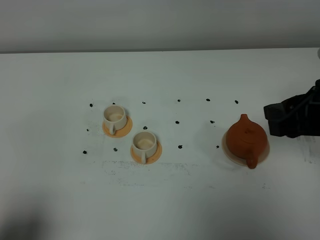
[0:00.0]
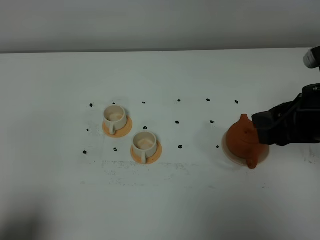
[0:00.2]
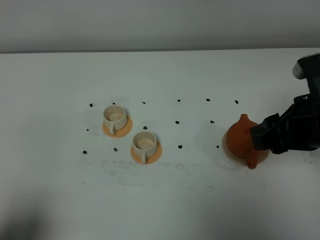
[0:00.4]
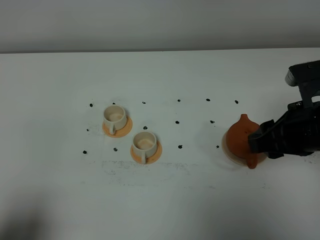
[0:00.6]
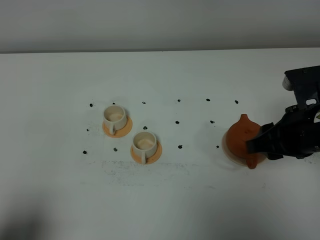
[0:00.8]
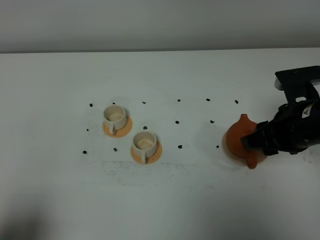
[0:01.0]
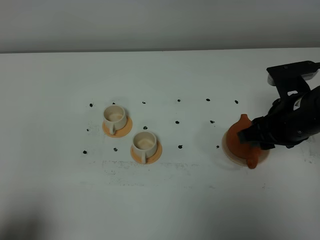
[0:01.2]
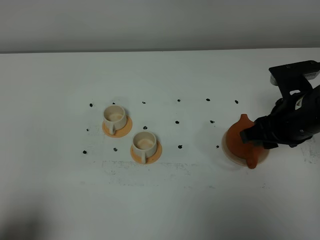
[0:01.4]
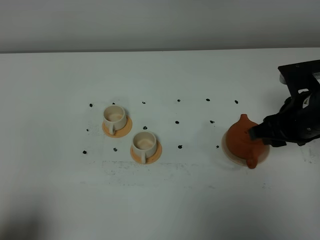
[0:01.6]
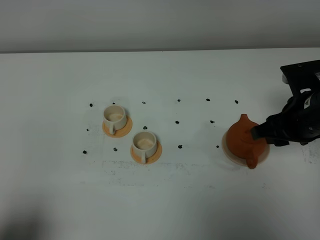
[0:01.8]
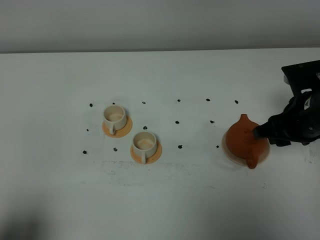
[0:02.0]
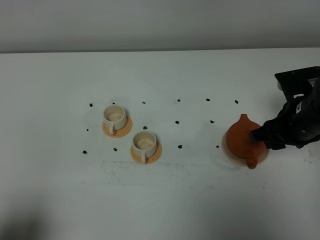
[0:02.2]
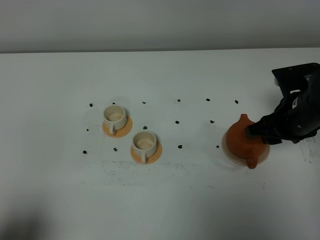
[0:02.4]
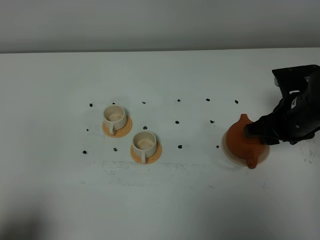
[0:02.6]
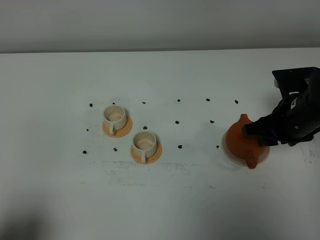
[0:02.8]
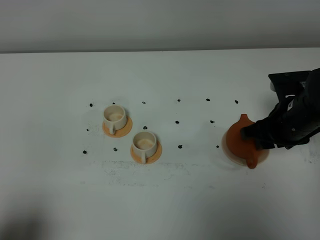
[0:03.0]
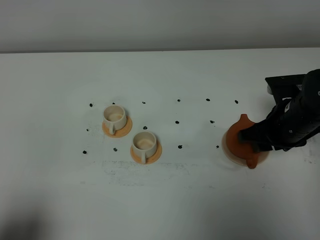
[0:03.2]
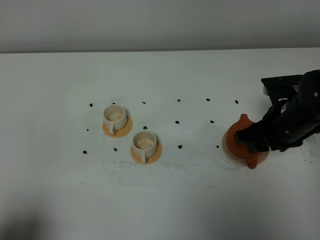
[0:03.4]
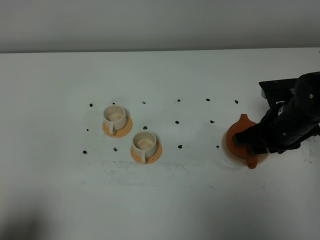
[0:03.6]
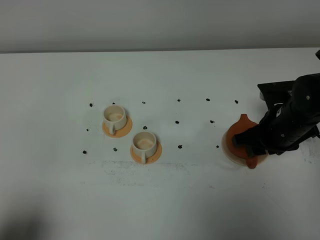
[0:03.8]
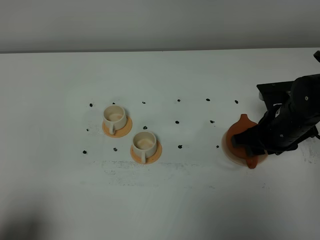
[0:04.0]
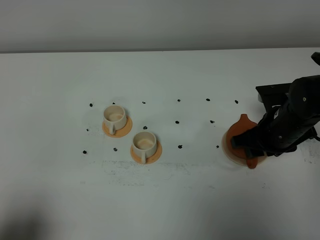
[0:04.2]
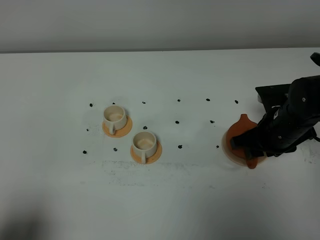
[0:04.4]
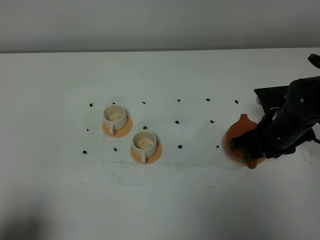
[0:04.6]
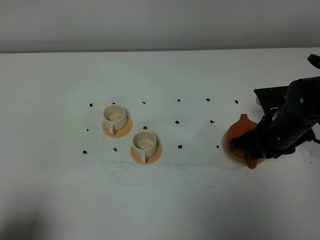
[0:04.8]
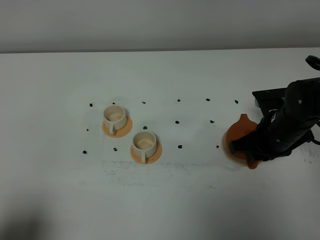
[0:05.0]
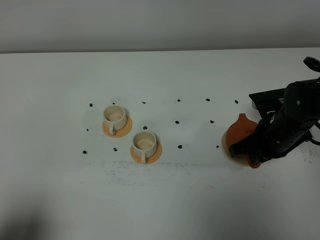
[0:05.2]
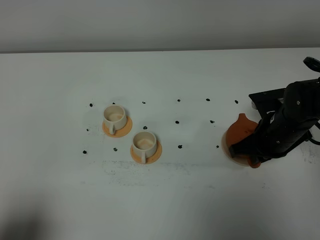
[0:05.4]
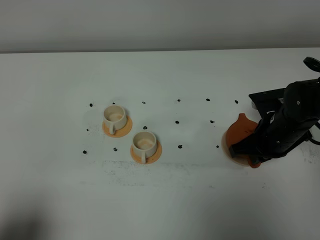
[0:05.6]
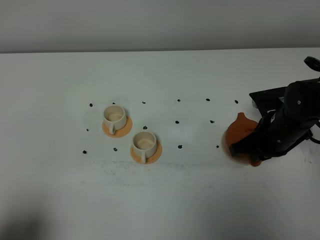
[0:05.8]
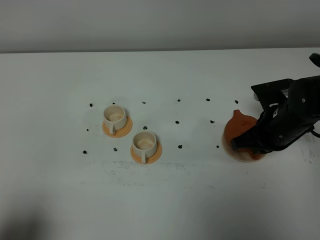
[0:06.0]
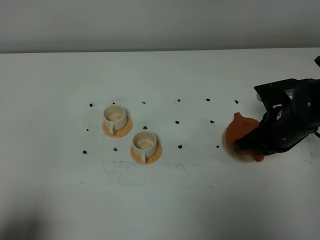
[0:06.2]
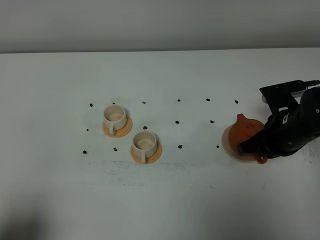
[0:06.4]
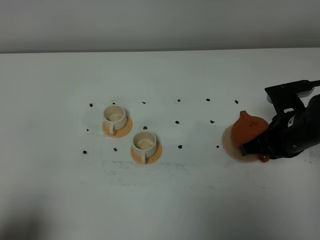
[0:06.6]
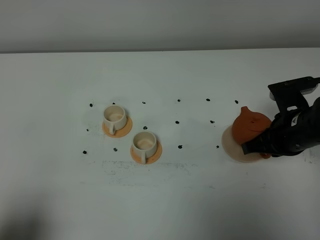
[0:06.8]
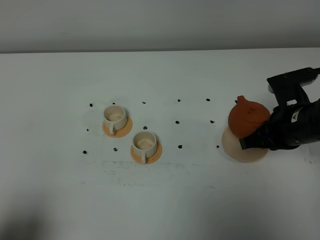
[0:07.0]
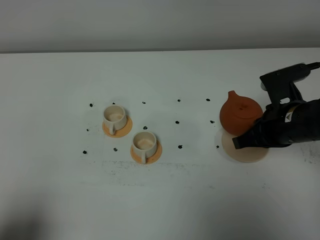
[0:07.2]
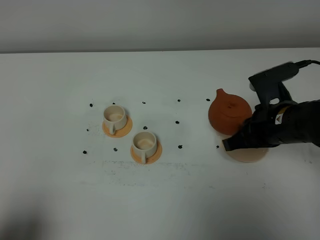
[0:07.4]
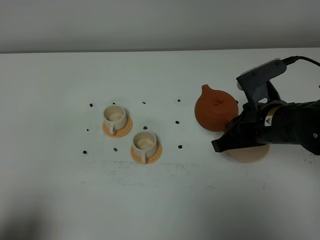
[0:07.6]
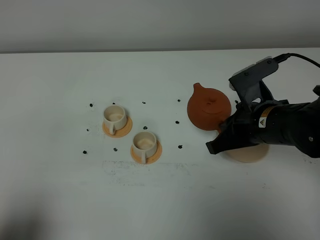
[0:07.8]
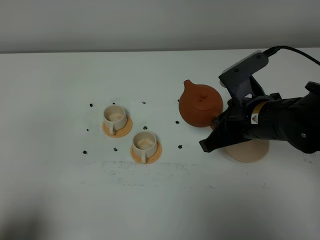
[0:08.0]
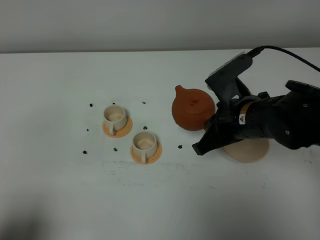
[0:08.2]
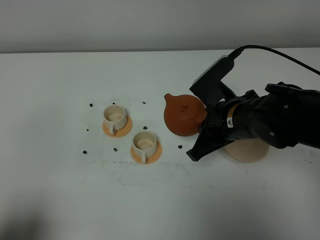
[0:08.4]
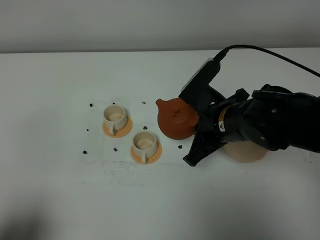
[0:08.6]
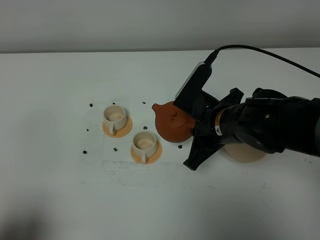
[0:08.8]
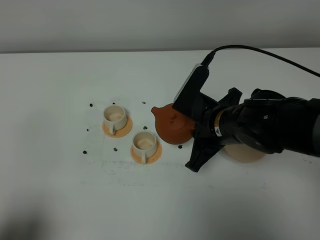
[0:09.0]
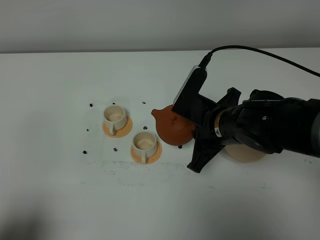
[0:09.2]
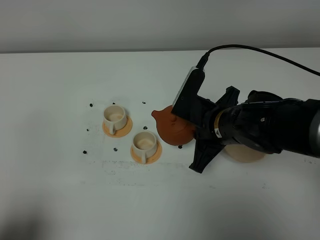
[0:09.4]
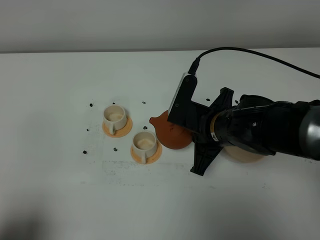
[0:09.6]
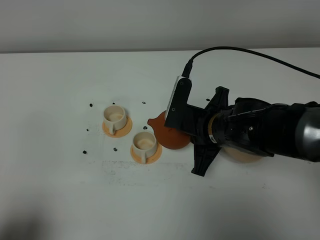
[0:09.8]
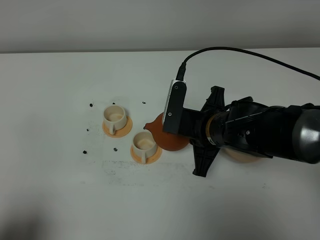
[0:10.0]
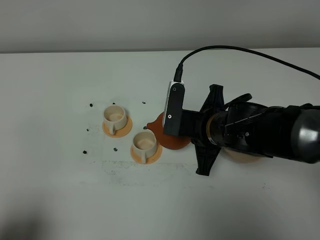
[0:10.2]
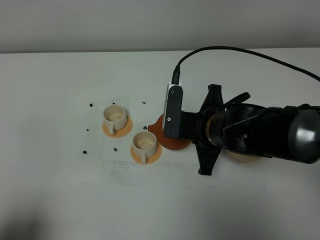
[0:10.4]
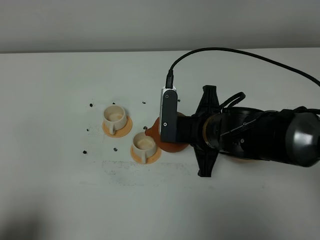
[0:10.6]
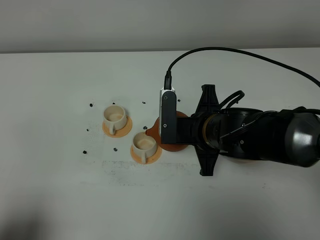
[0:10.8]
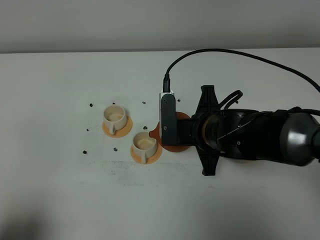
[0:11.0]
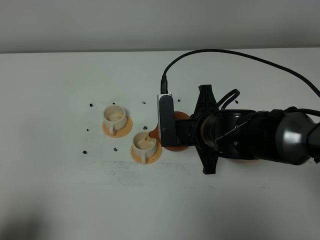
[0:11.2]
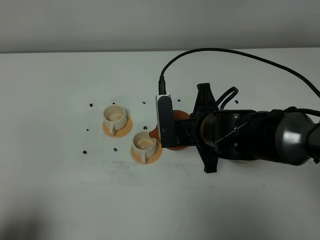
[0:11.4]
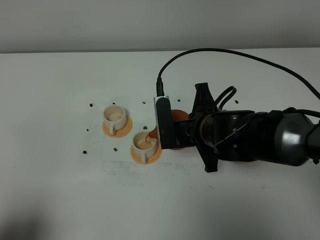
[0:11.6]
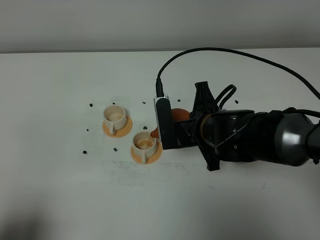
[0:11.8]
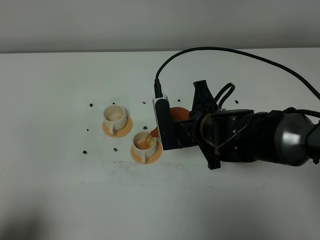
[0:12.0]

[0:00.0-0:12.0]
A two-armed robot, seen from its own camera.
Task of the whole recording: grasp the brown teapot and pour the tea into the two white teacups one by one, put the brown teapot back in its original place.
Step, 0:00.0 to 0:06.4: Pick up the teapot with the right gripper.
0:00.0 to 0:01.6: The right gripper is displaced downward and forward by about 10 cm.
0:01.6 to 0:03.0: There are only small adjustments of the grippers.
0:03.0 to 0:04.4: There are only small adjustments of the grippers.
0:04.4 to 0:06.0: The right gripper closes its fingers.
0:06.0 to 0:07.6: The right gripper shifts by roughly 10 cm.
0:07.6 to 0:09.0: The right gripper goes approximately 5 cm to the left.
0:10.4 to 0:12.0: The grippers make only small movements.

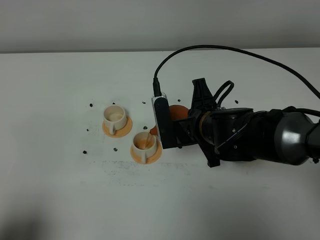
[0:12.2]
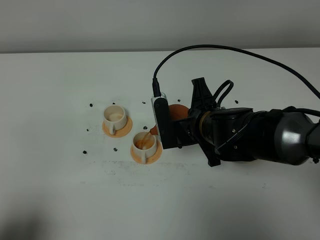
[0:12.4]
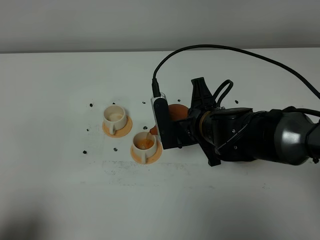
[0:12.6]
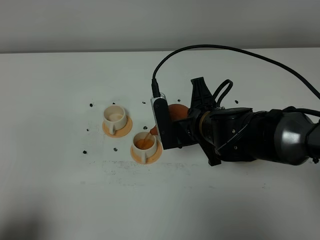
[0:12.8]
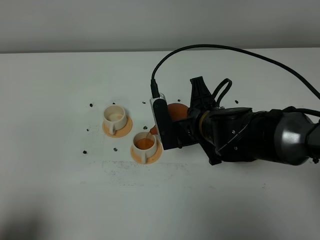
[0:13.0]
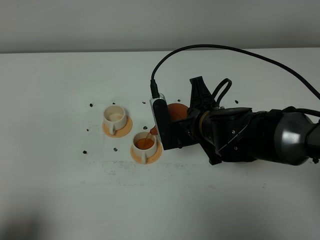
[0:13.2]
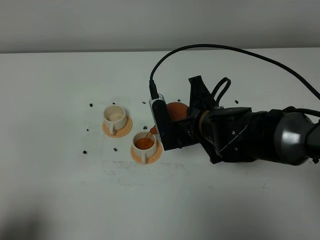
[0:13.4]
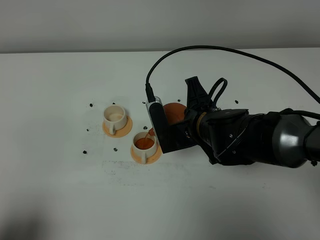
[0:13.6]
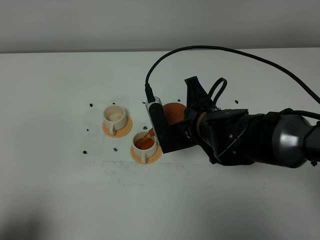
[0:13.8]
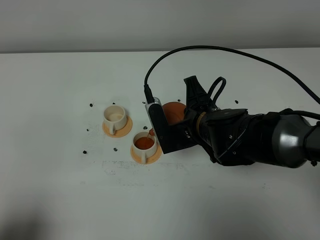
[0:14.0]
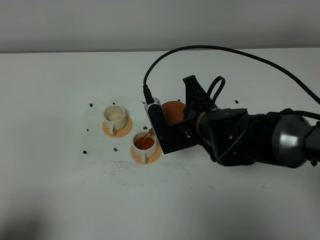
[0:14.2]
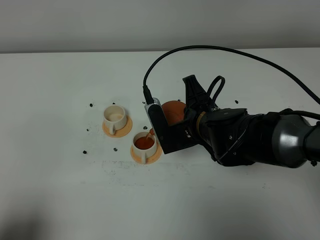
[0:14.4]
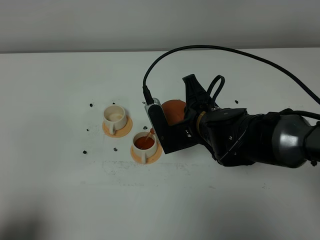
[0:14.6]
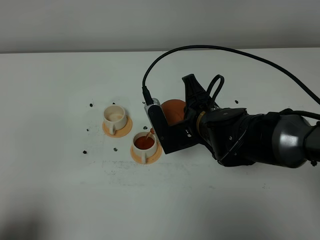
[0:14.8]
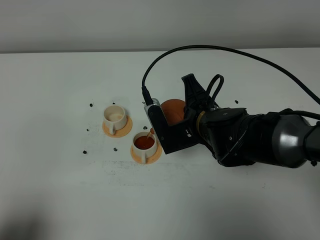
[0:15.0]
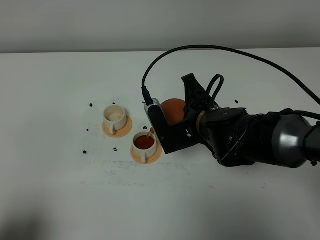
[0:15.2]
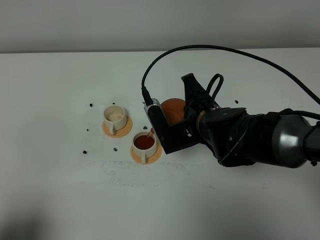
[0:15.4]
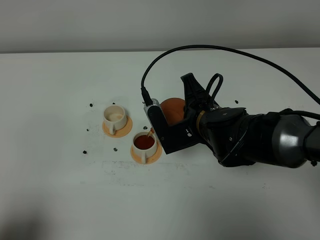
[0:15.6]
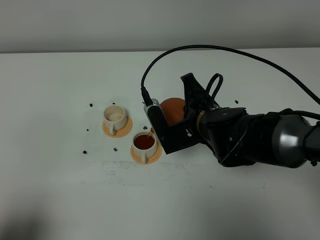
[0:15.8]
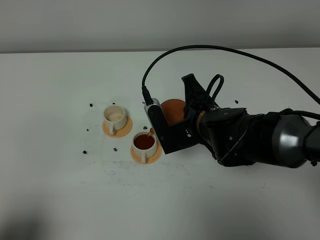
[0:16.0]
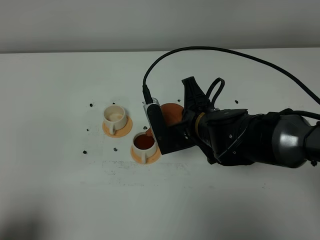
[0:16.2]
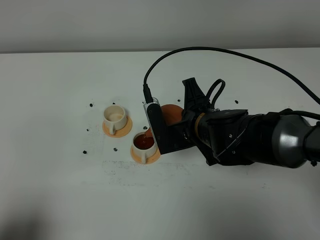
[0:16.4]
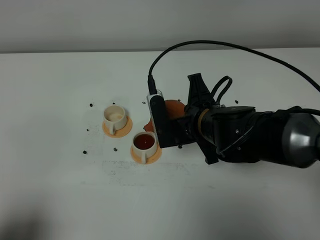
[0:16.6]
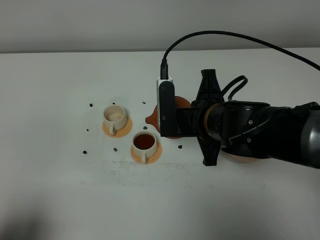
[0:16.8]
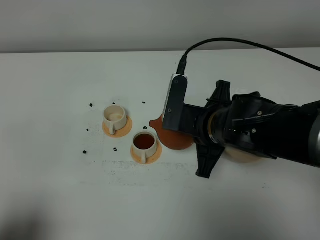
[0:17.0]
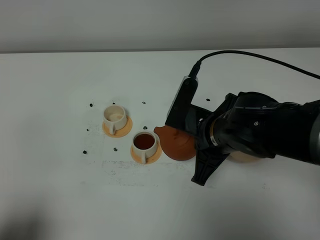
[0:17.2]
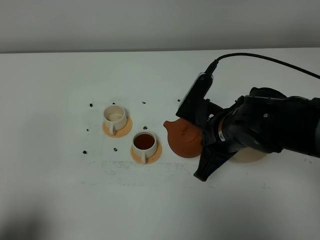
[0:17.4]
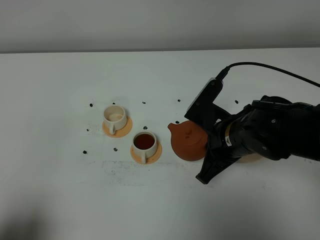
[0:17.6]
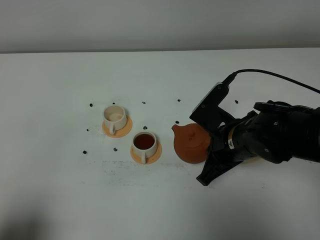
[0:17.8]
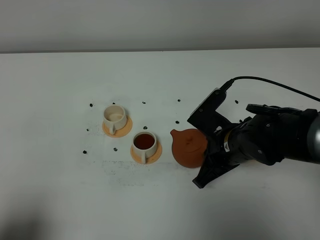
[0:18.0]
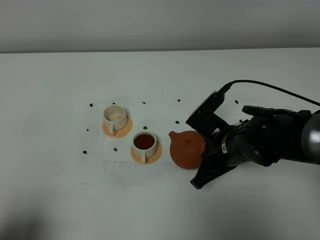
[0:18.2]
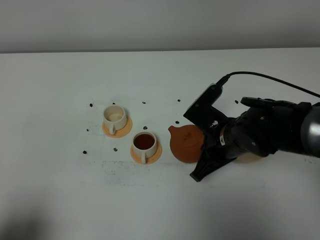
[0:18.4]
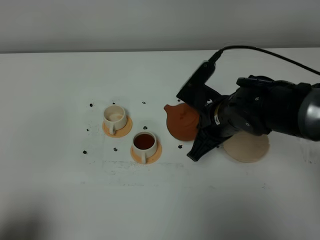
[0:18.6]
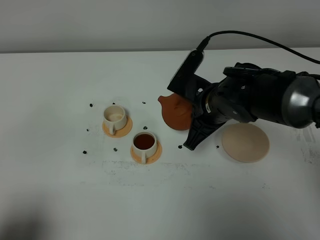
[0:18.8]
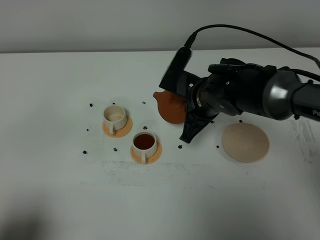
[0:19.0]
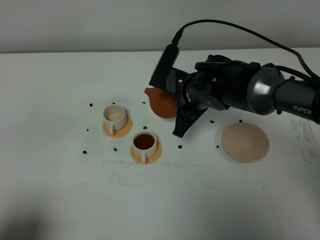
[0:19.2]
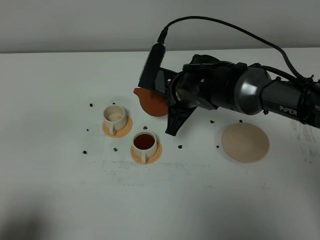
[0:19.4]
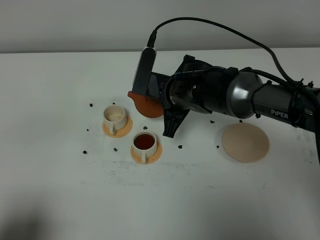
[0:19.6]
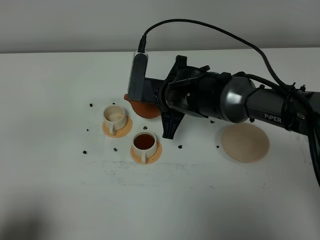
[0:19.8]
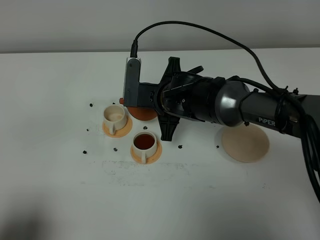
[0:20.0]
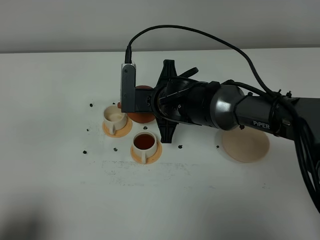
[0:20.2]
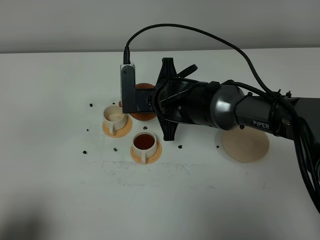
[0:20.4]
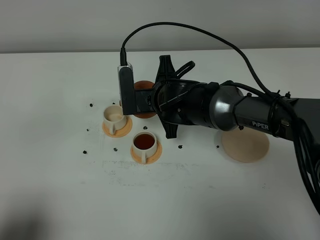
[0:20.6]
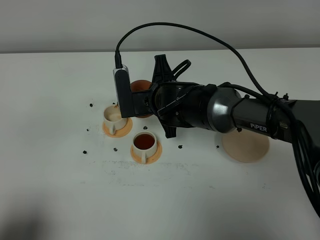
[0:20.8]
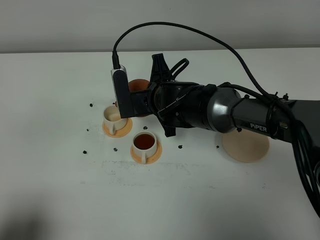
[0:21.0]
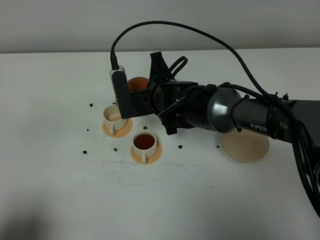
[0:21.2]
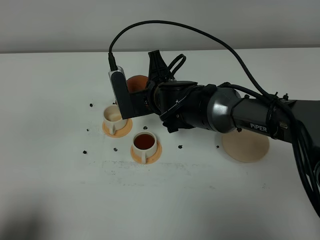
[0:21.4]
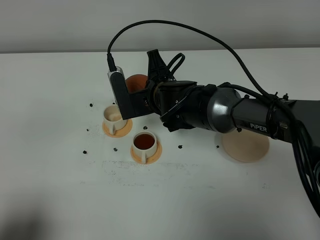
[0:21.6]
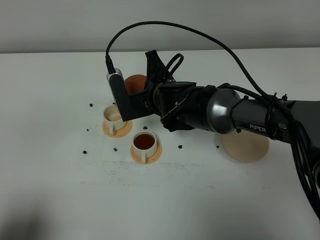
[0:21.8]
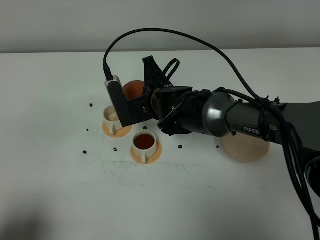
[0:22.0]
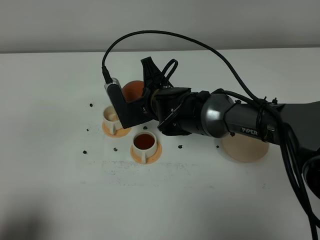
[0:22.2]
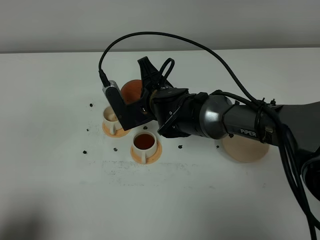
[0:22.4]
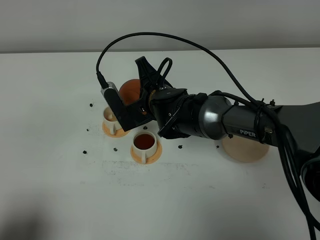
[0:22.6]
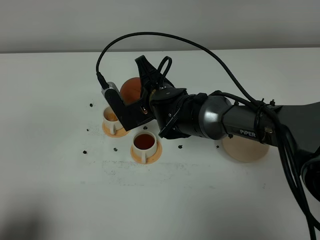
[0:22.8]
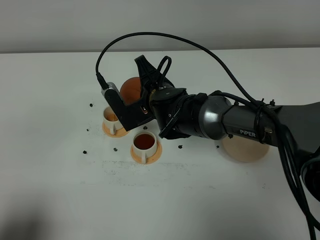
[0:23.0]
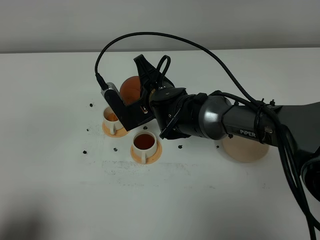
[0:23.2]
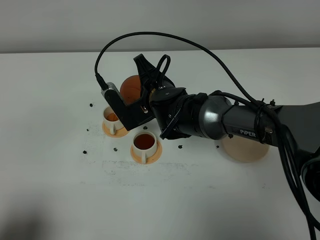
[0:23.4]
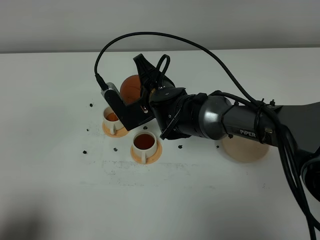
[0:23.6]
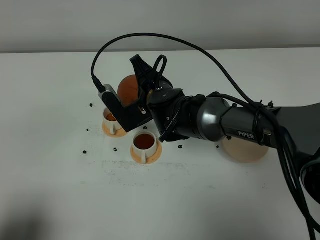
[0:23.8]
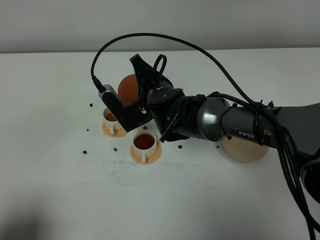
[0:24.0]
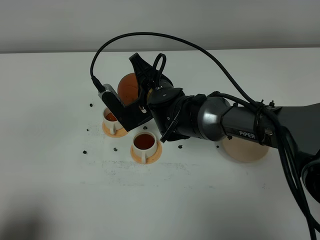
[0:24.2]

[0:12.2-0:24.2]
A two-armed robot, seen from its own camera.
Task of the whole recording: grasp the brown teapot and pour the tea into the two white teacups one by one, put the brown teapot back in its original place.
0:12.2 to 0:16.6: The grippers move only a little.
0:16.6 to 0:18.2: The right gripper moves approximately 5 cm.
0:18.2 to 0:19.8: The right gripper shifts some 15 cm forward and to the left.
0:21.2 to 0:22.6: The grippers stay close to where they were, moving slightly.
0:22.6 to 0:24.2: There are only small adjustments of the grippers.
